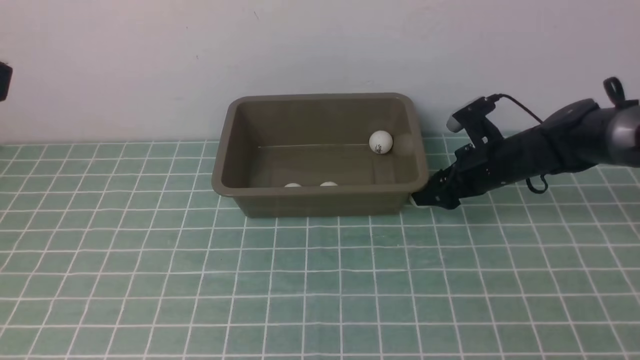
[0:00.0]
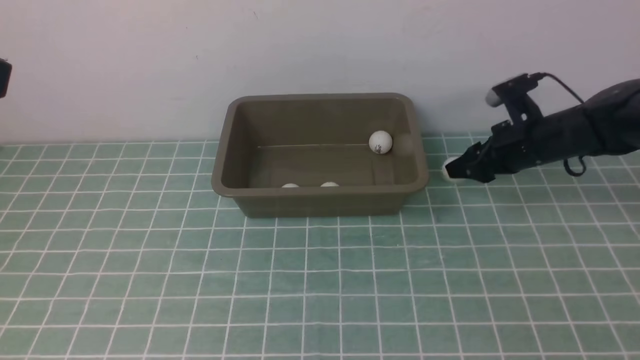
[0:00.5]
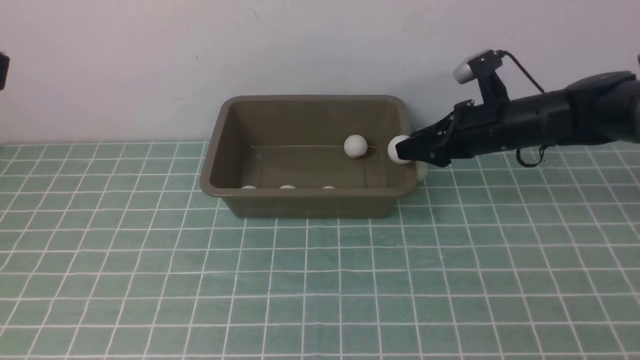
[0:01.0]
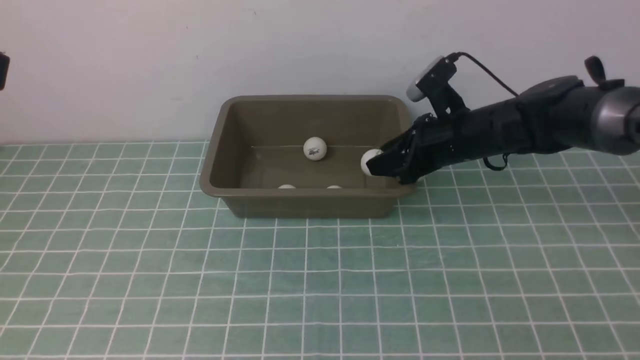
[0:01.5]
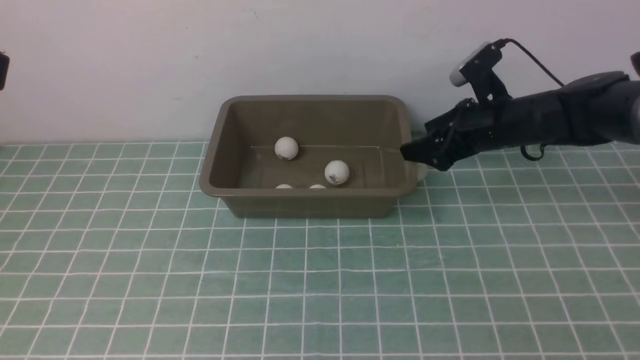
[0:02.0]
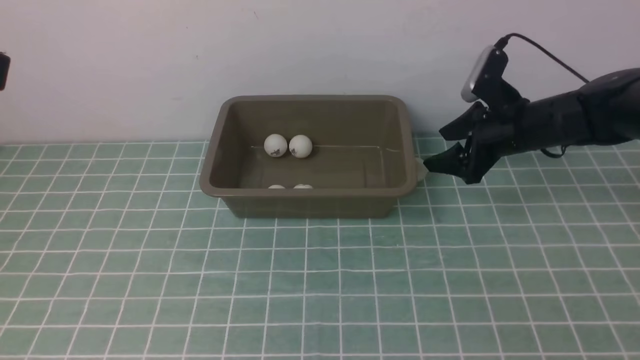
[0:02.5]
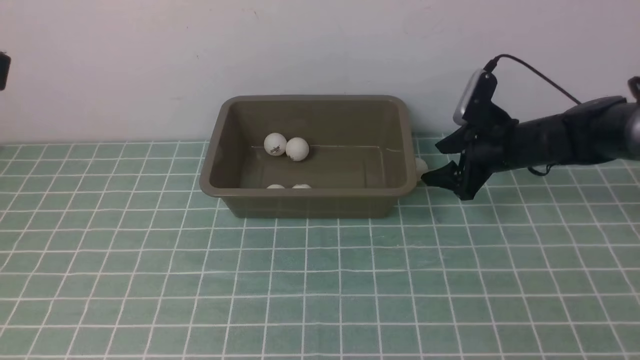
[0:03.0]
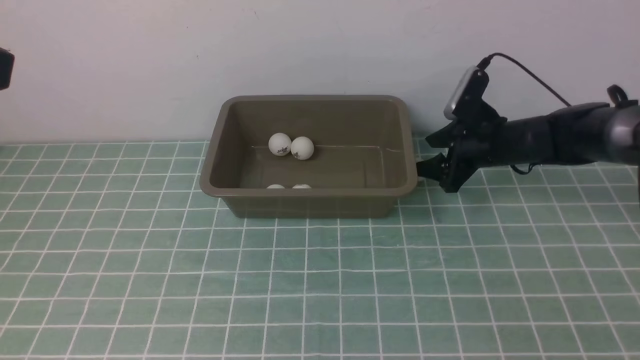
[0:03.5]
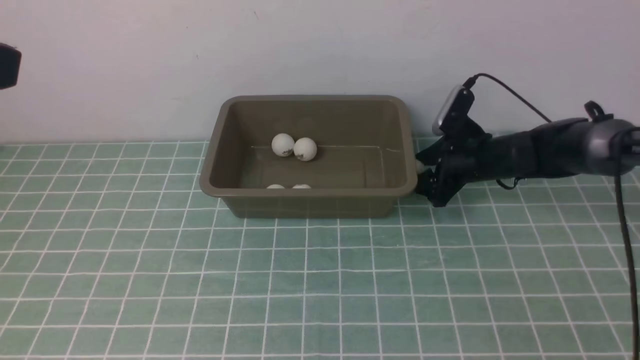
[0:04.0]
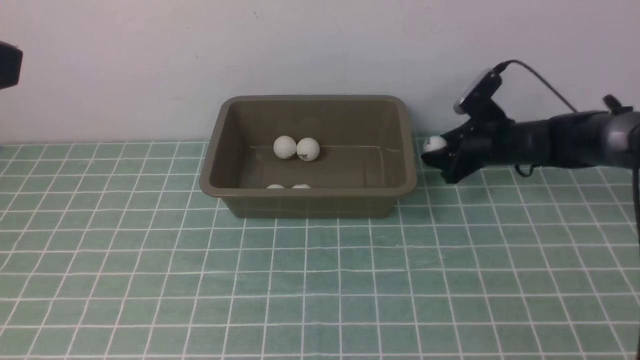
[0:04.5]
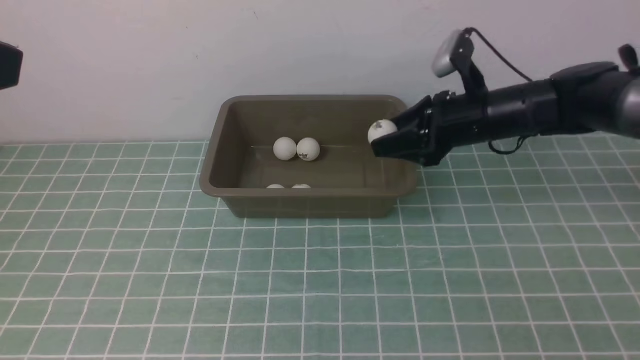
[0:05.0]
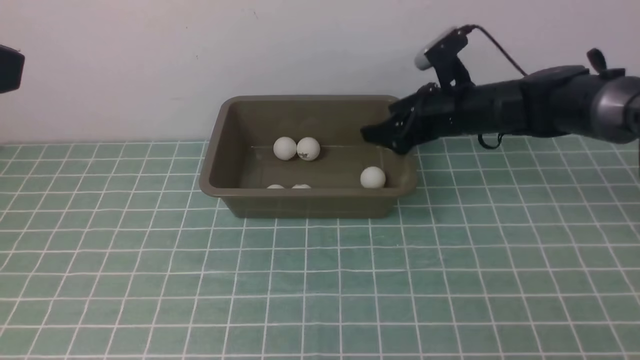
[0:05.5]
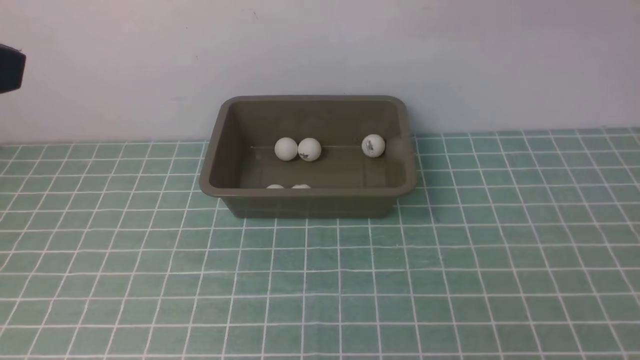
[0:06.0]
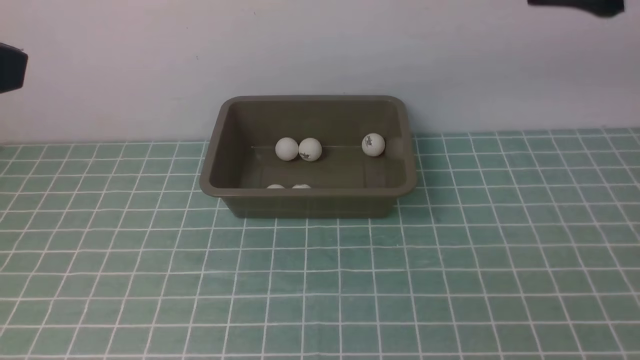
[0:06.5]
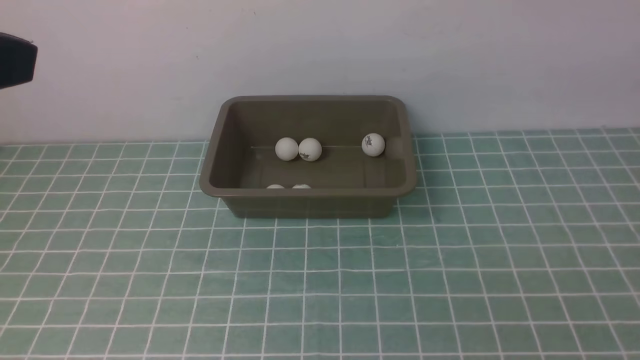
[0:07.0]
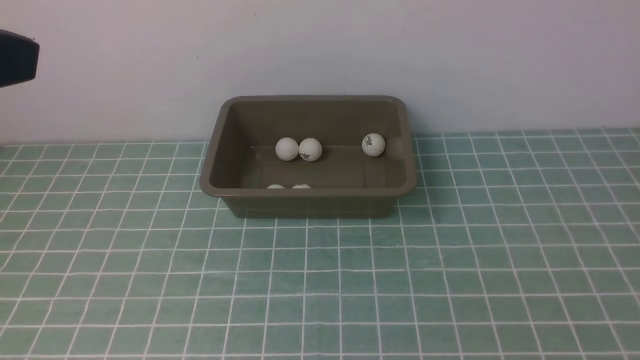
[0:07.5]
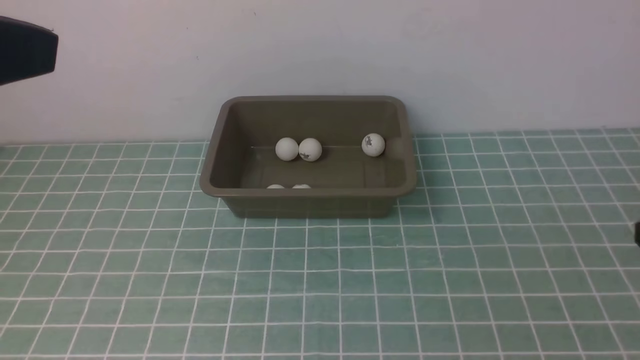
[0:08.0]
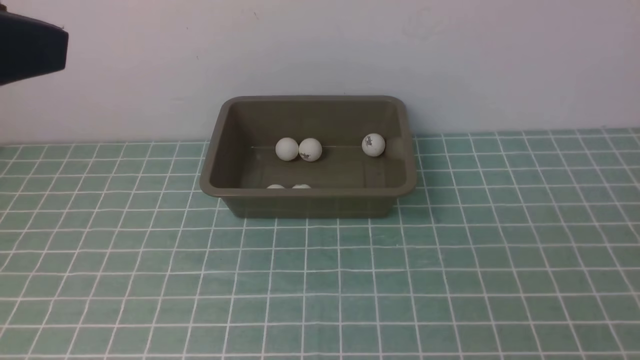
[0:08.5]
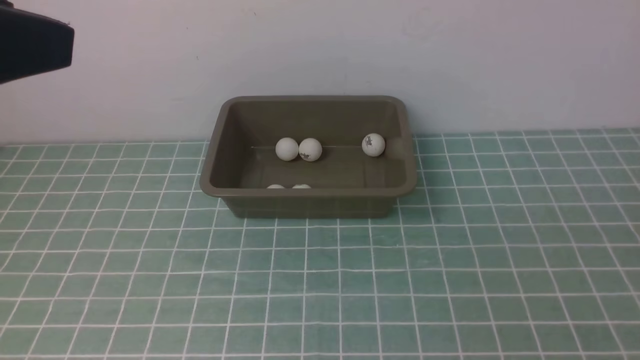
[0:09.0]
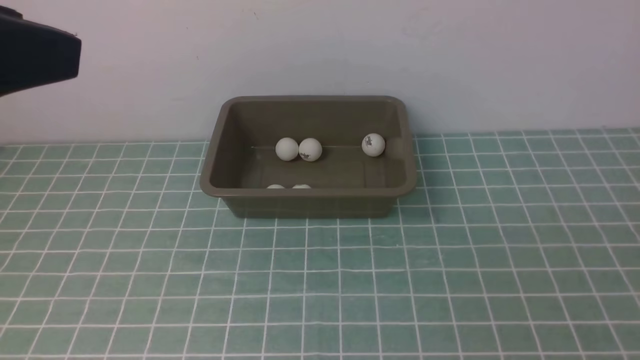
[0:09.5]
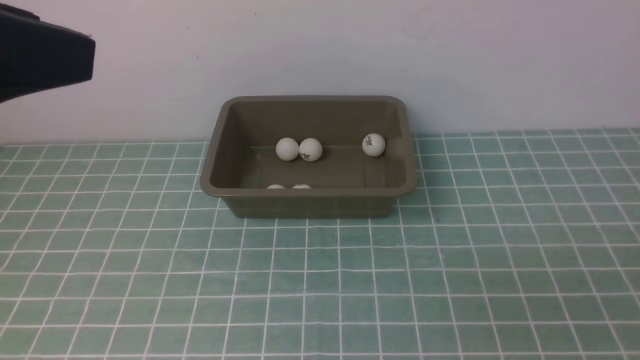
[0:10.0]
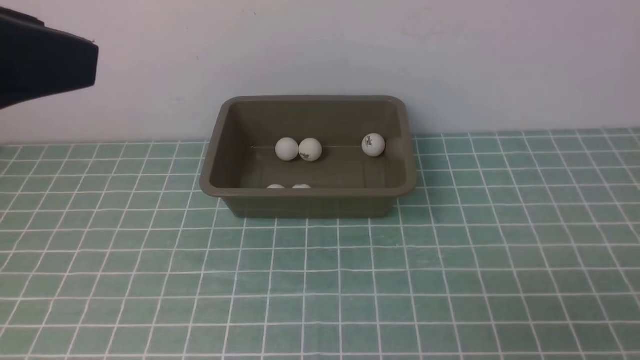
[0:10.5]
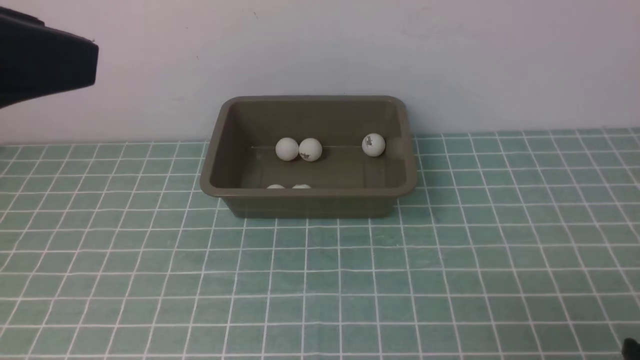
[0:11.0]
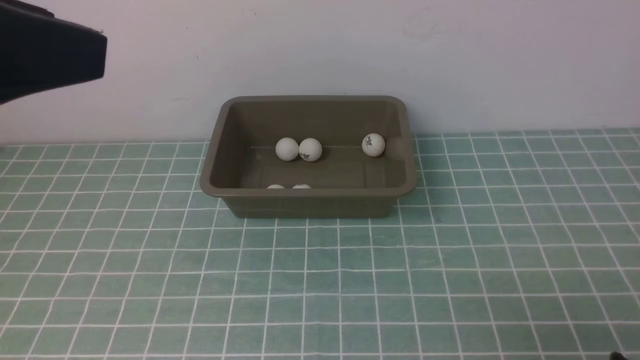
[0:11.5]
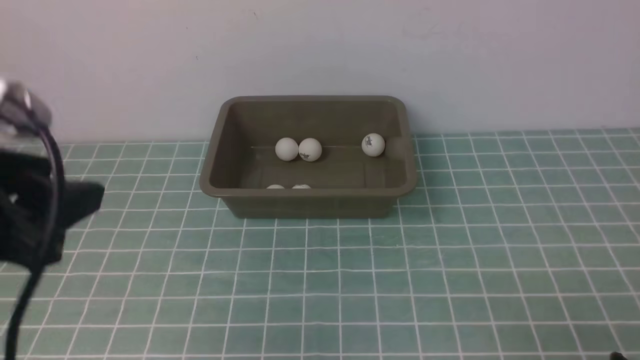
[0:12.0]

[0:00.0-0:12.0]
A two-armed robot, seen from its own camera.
Step, 0:01.0 to 0:01.5: use the right arm to put the table tennis ball into the box.
Step, 0:02.0 to 0:04.5: use the right arm to clamp the table tennis ball closest to it.
Step, 0:05.0 to 0:05.5: use the right arm to put the table tennis ball into the box.
0:00.0 to 0:02.0: The right gripper is displaced upward by about 5 cm, reaches about 5 cm to the left, then returns, and opens.
0:02.0 to 0:04.0: The right gripper moves downward, some 10 cm.
0:04.0 to 0:06.0: The right gripper moves upward, some 35 cm, and closes, then reopens.
0:10.0 to 0:12.0: The left gripper heads downward, covering some 10 cm.

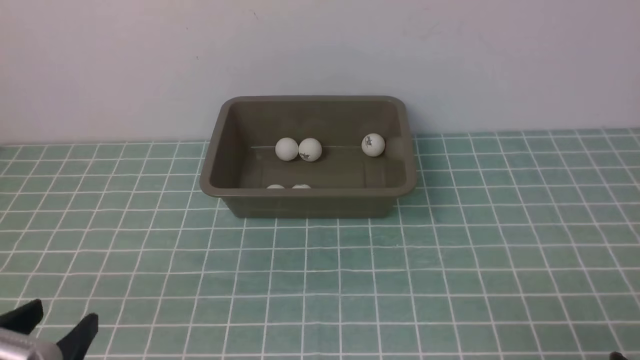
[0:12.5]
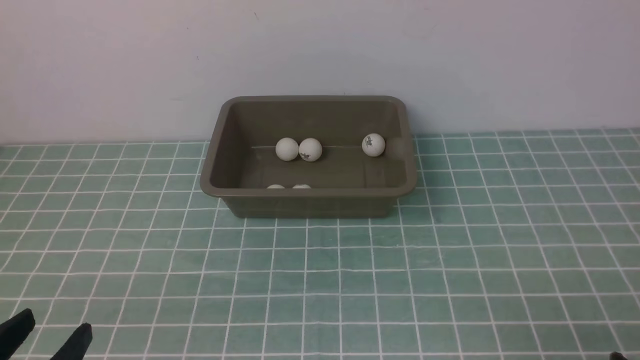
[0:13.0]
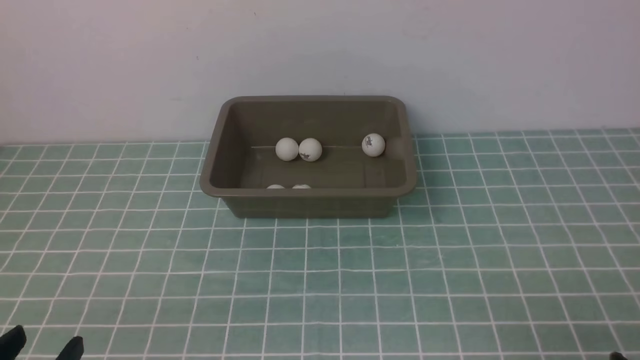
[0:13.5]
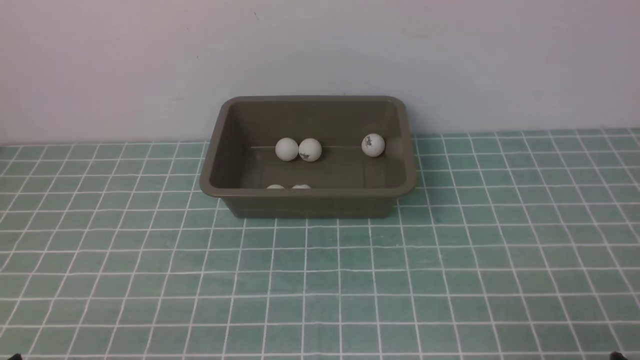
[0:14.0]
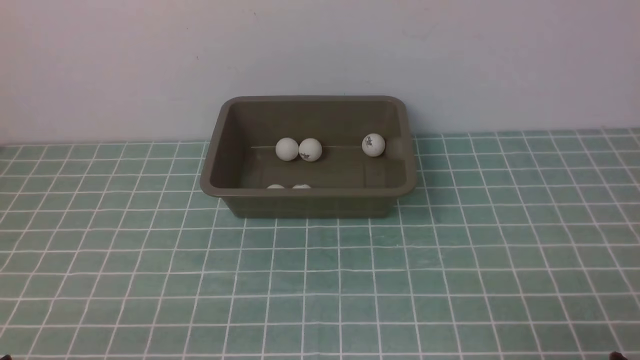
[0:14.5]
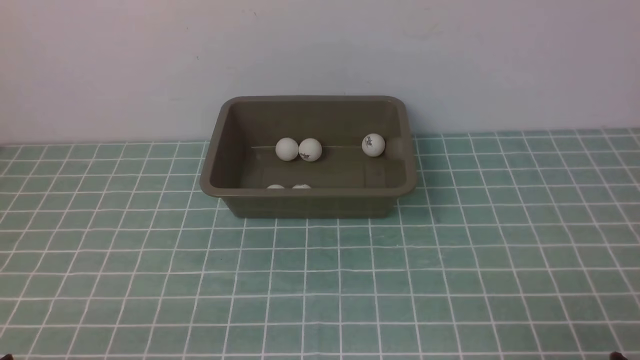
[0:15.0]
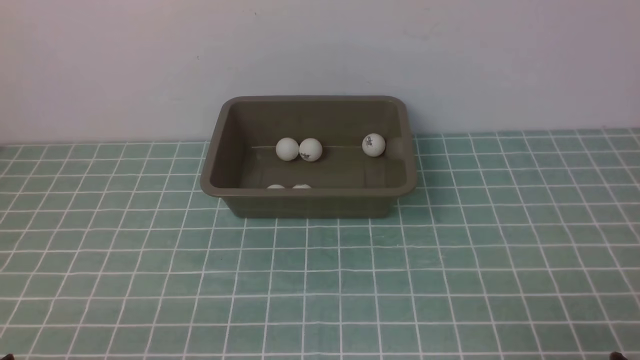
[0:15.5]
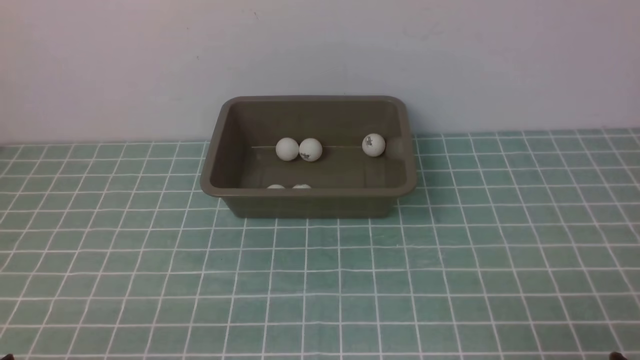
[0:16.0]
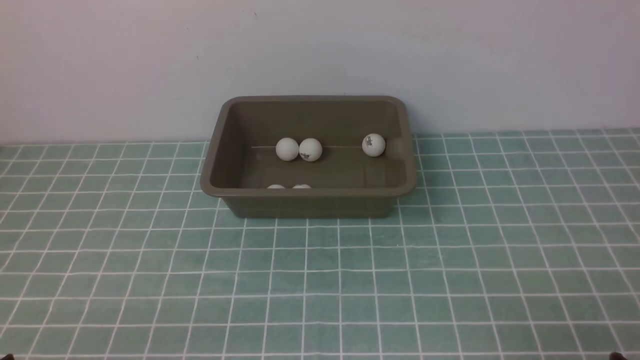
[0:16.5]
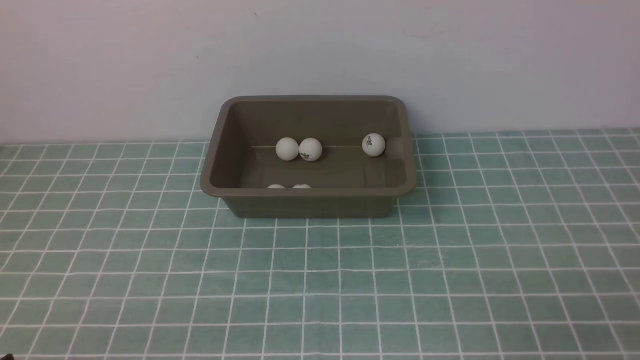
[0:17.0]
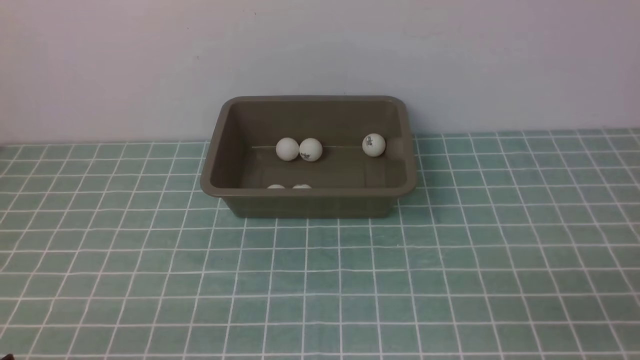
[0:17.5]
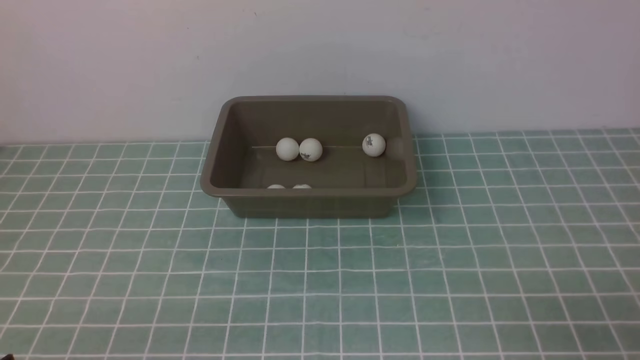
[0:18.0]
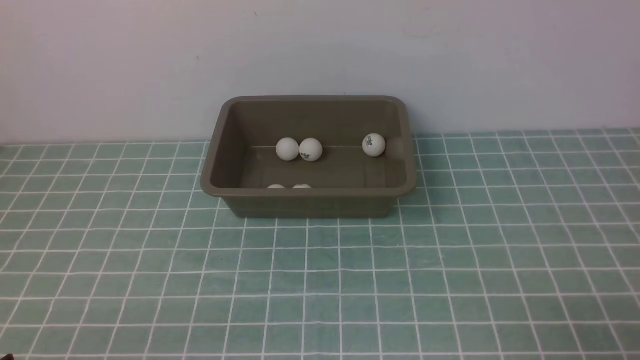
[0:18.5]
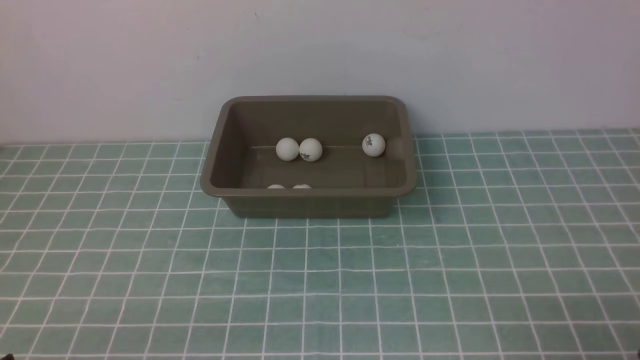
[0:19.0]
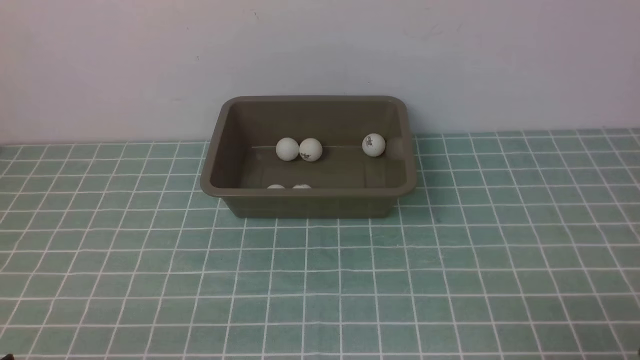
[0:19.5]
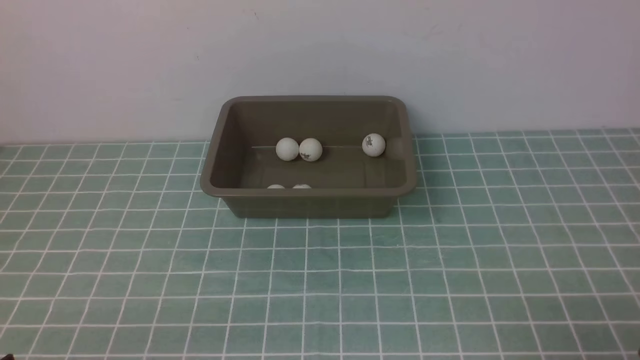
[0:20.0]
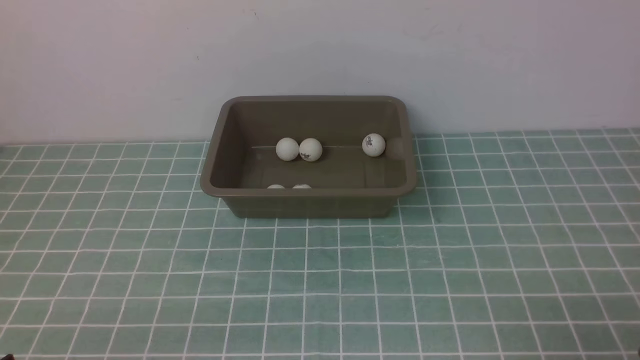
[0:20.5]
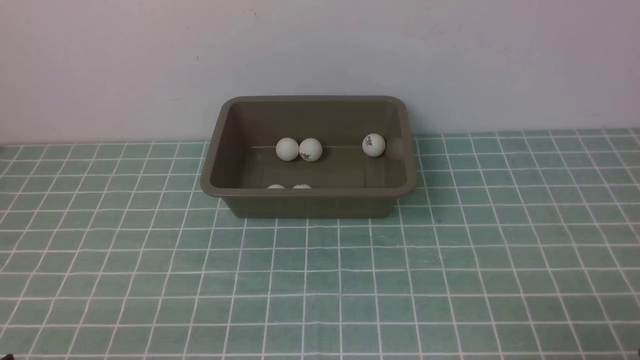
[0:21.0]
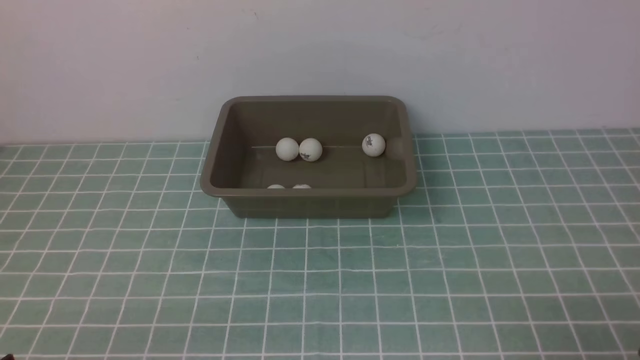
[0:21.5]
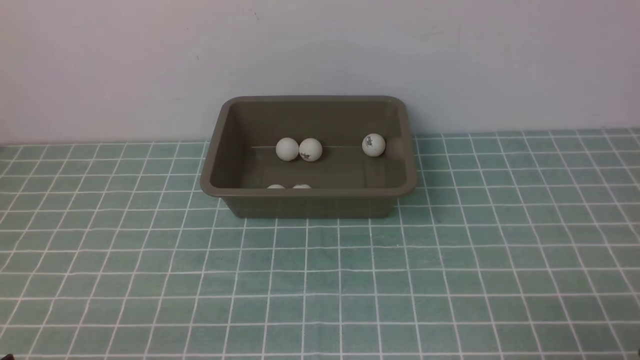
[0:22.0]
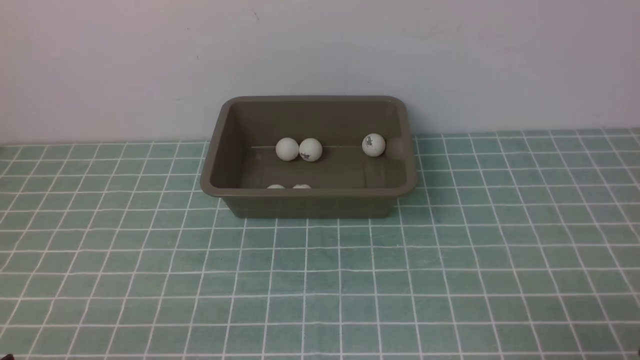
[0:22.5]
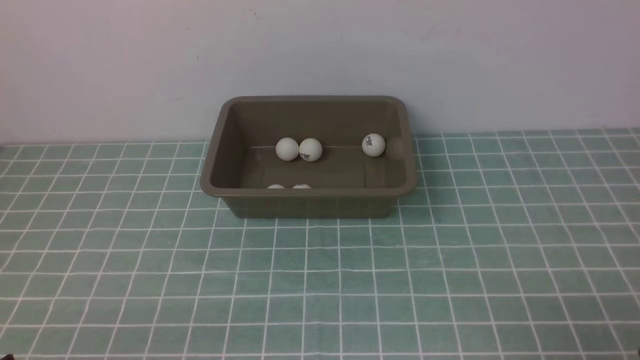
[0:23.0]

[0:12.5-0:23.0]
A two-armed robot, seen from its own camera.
0:12.5 to 0:14.5: The left gripper shifts roughly 5 cm downward.
0:14.5 to 0:16.5: Both grippers stay about where they are.
0:19.0 to 0:23.0: Neither gripper changes place.
